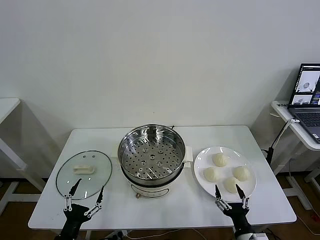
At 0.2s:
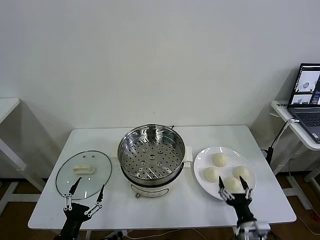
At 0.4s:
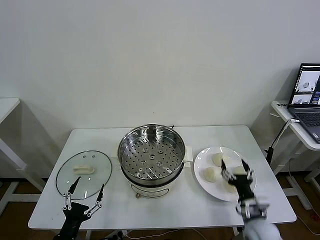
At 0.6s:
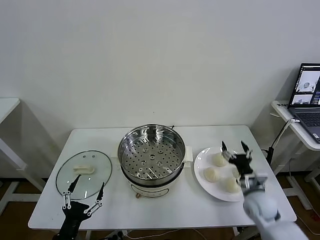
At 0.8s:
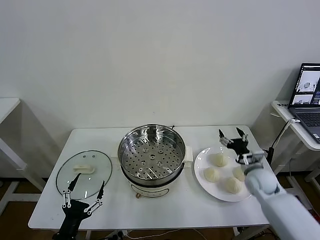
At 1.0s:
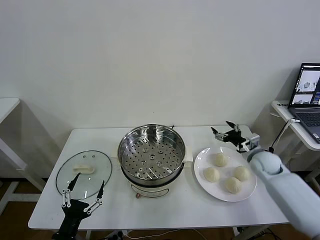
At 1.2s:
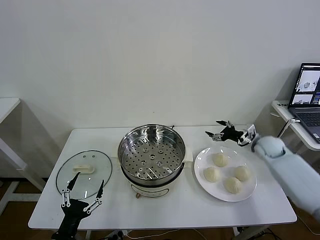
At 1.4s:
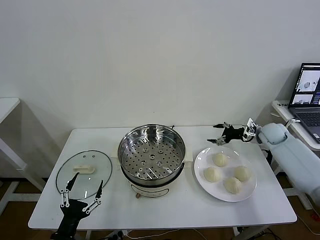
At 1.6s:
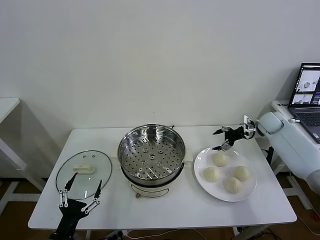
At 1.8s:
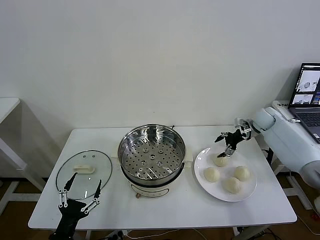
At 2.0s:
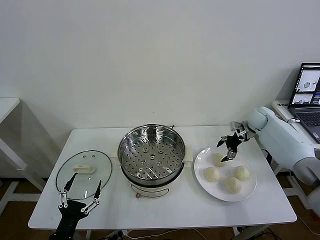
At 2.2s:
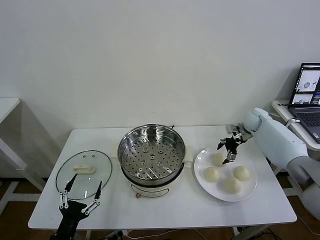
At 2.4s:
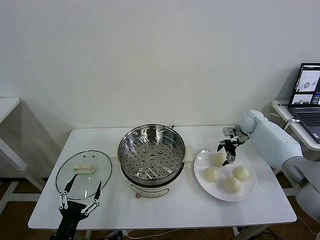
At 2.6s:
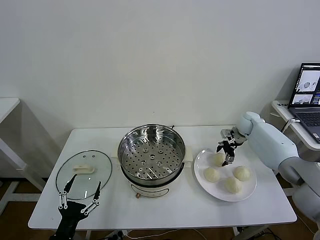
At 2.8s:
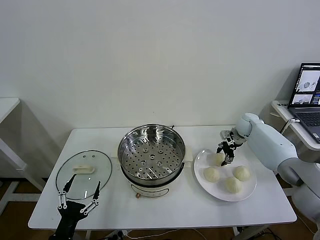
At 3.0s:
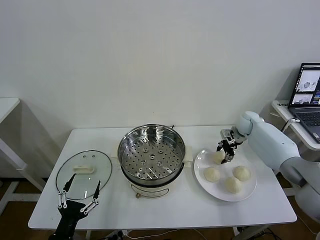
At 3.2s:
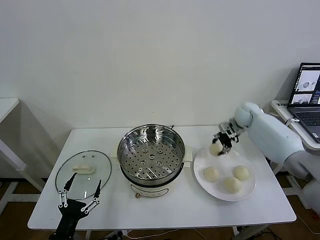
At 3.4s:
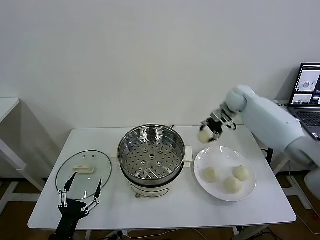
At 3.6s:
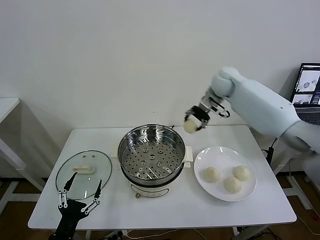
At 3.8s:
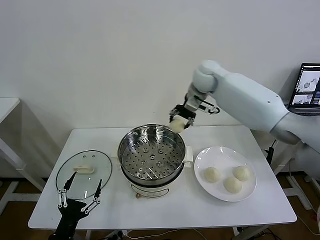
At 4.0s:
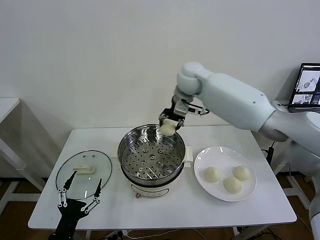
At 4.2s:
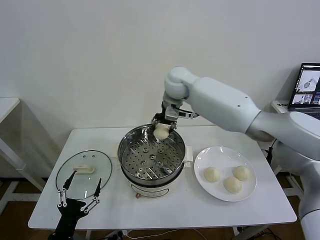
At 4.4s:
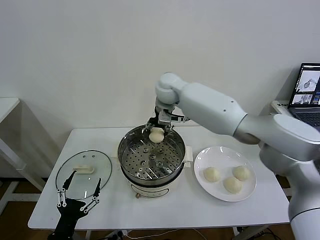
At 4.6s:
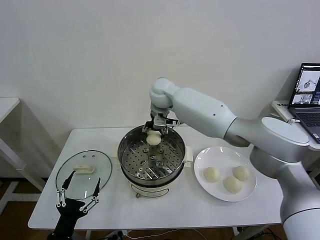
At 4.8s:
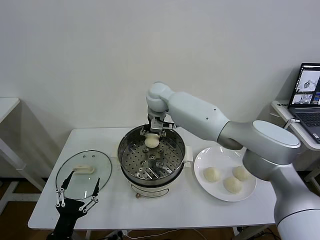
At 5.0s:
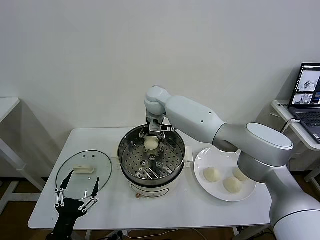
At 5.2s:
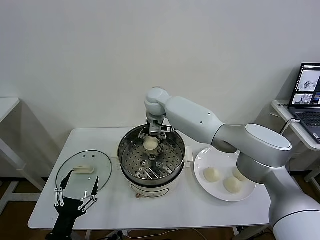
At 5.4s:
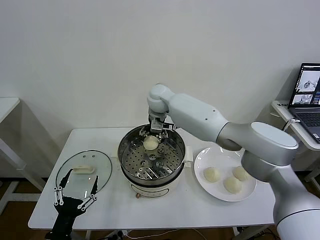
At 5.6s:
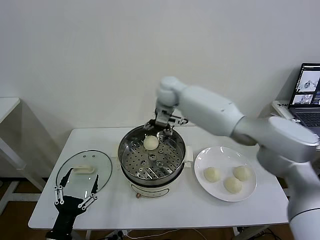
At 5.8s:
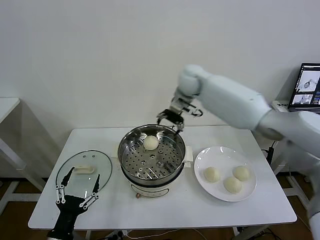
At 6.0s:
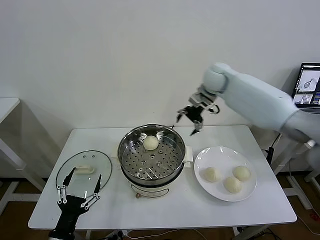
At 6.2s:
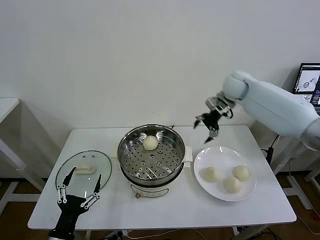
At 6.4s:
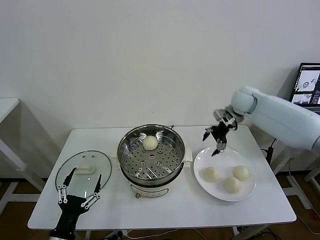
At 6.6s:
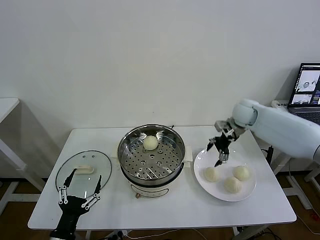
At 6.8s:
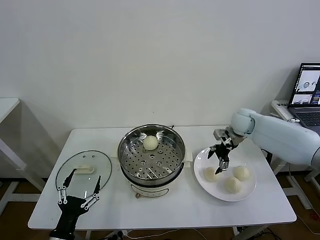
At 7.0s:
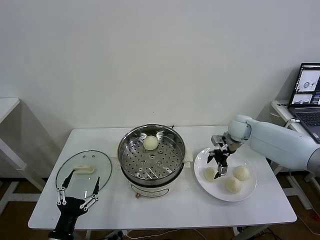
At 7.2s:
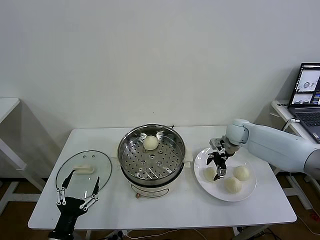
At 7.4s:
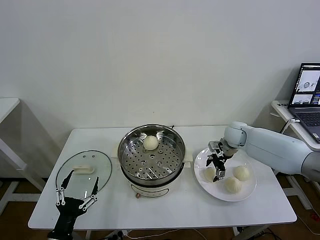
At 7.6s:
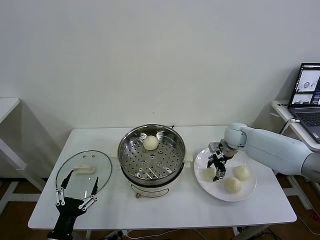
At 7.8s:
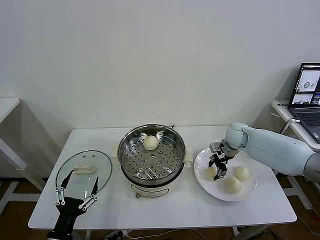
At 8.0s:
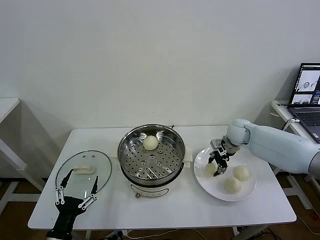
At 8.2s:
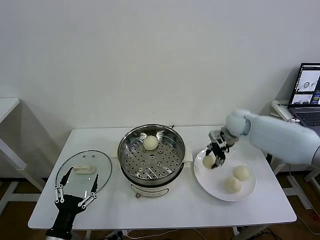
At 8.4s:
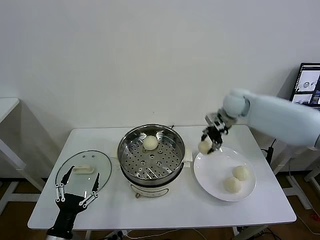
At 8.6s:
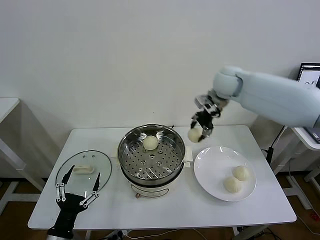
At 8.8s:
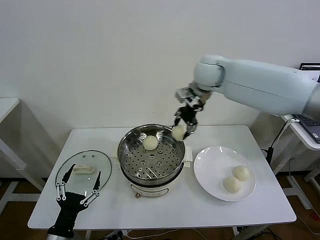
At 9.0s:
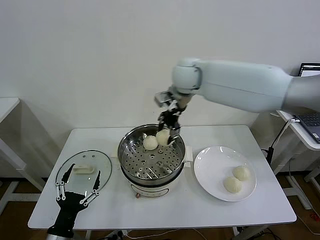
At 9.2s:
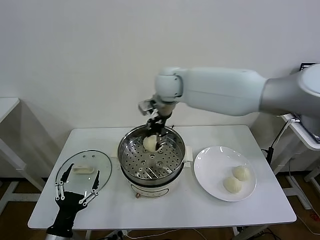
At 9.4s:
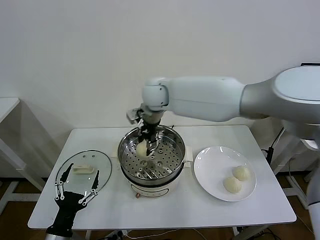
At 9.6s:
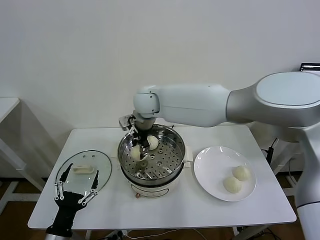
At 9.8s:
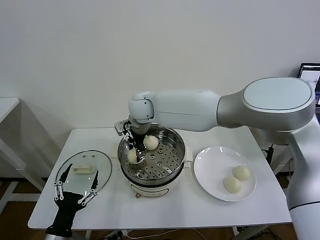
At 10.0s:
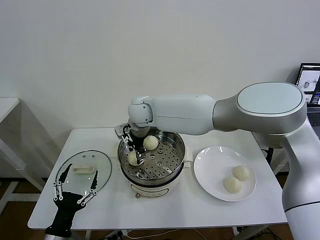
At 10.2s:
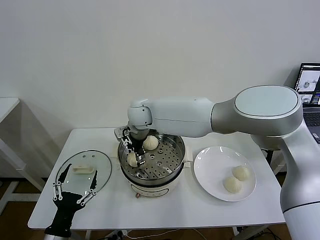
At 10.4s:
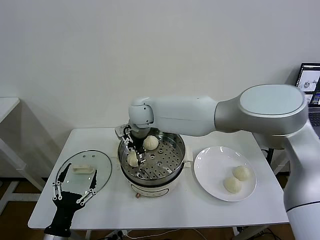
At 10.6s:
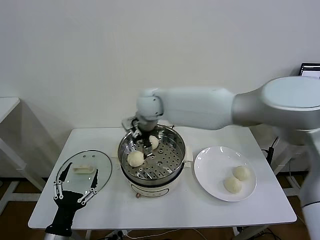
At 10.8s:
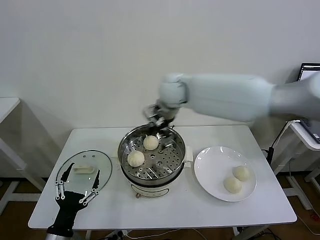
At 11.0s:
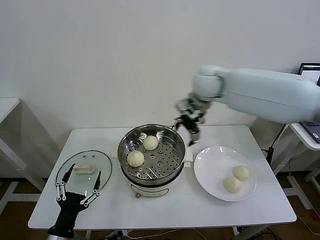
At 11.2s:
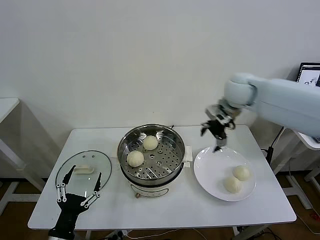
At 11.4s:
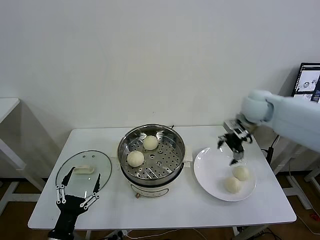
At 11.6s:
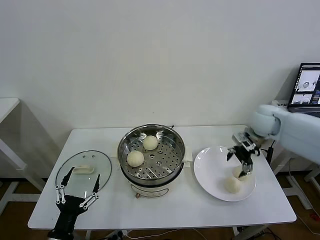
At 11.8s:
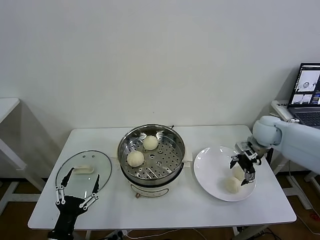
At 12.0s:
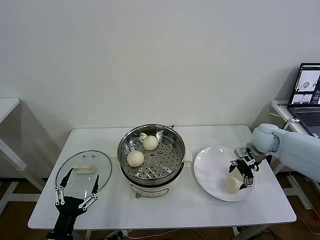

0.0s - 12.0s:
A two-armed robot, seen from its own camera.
Task of the whole recording: take steamed baozi put them in steamer then cover it.
Step, 0.0s - 2.6s: Grasp the baozi in the plate with right gripper.
Step, 3.0s - 5.4s: Place the baozi on the steamer with right gripper.
Step, 5.6s - 7.6s: Grasp the baozi in the plate with right gripper.
Step, 7.8s - 10.2s: Place the baozi on the steamer with right gripper.
1.6s - 3.0s: The right gripper moves to the left, approximately 5 cm, and closes up.
3.0s - 4.4s: The right gripper is displaced to the left and upward by about 40 cm.
4.4s - 6.0s: The right gripper is displaced to the right by approximately 20 cm, and opens its fingers.
6.0s - 7.6s: The right gripper travels downward by roughly 20 cm, and closes up.
7.6s - 9.0s: The right gripper goes approximately 35 cm upward and to the left.
9.0s - 10.4s: The right gripper moves to the left and downward, some 15 cm, and opens up.
10.4s - 12.0s: The right gripper travels to the right by approximately 40 cm.

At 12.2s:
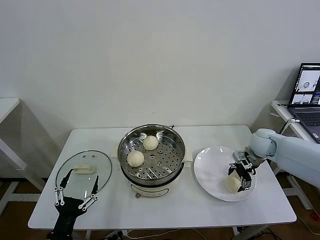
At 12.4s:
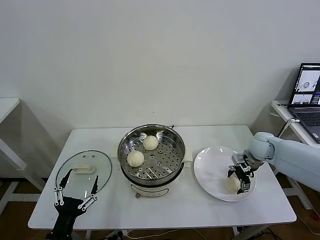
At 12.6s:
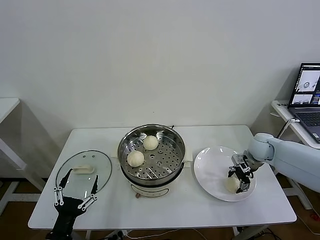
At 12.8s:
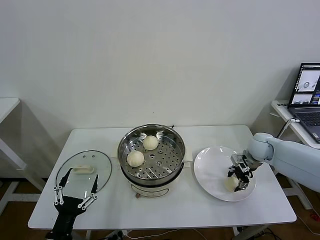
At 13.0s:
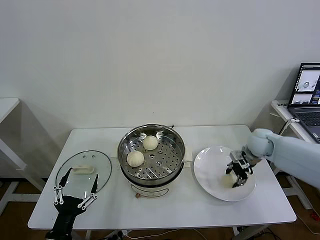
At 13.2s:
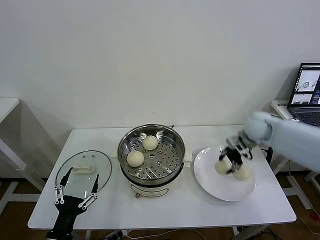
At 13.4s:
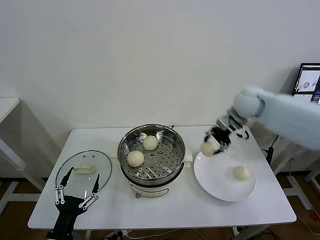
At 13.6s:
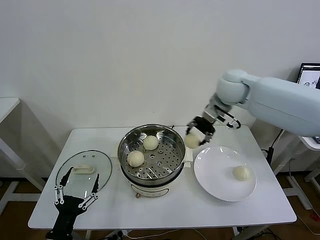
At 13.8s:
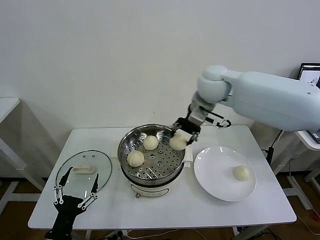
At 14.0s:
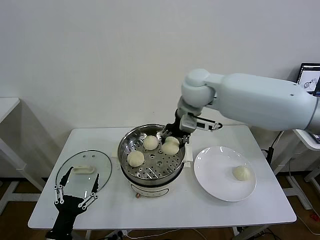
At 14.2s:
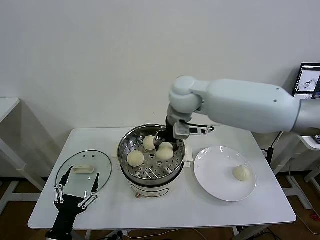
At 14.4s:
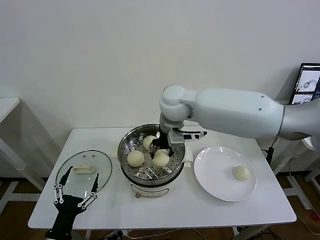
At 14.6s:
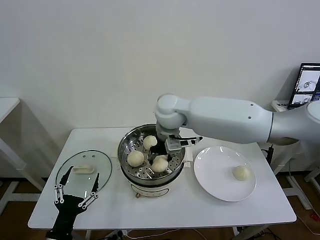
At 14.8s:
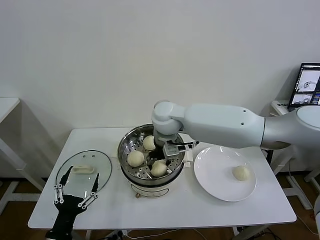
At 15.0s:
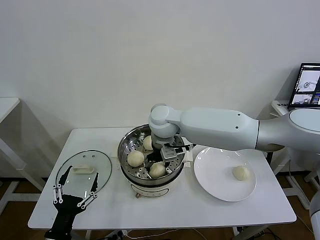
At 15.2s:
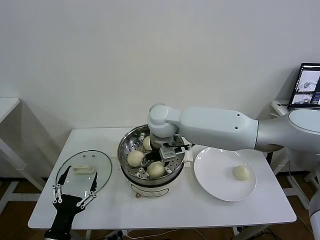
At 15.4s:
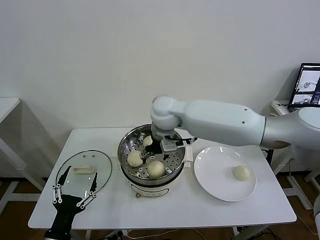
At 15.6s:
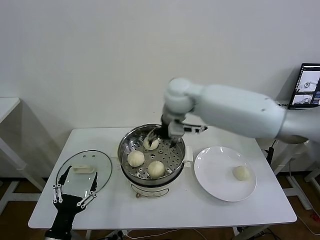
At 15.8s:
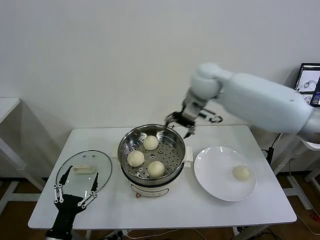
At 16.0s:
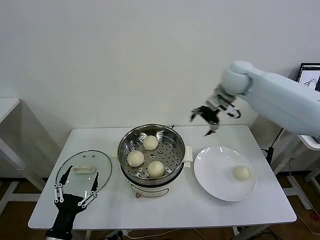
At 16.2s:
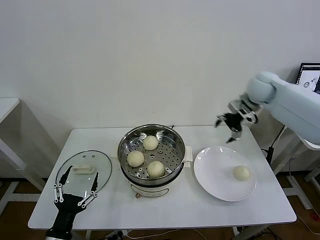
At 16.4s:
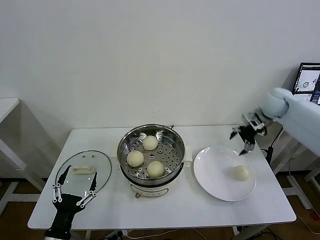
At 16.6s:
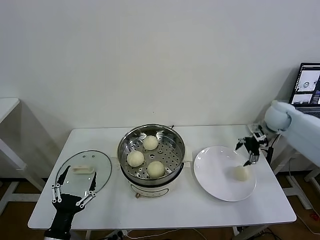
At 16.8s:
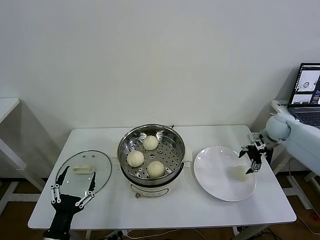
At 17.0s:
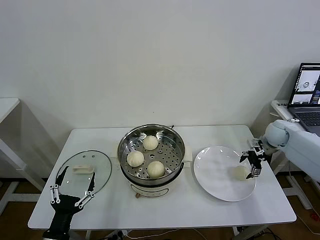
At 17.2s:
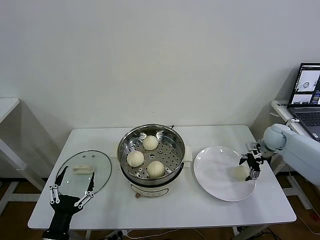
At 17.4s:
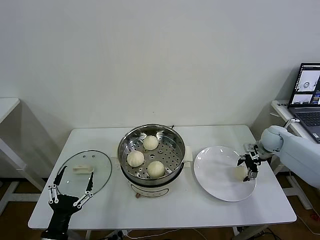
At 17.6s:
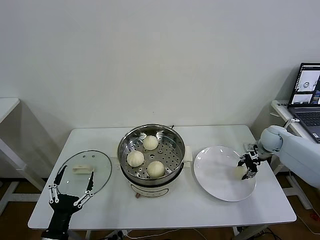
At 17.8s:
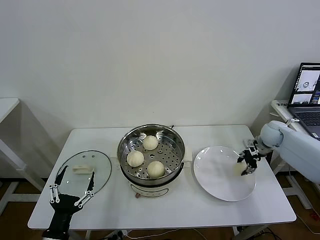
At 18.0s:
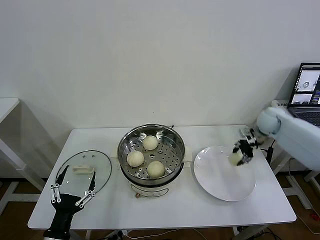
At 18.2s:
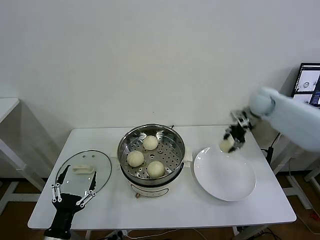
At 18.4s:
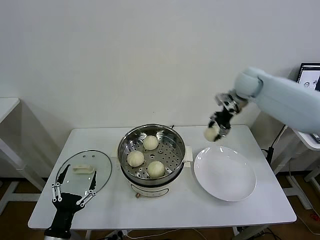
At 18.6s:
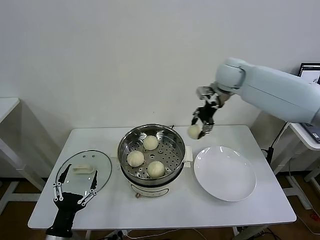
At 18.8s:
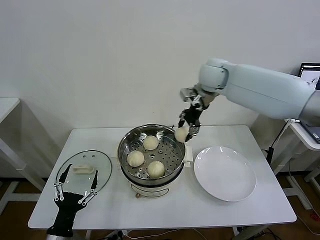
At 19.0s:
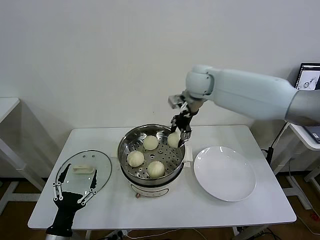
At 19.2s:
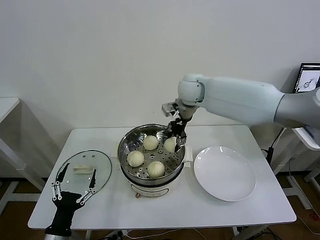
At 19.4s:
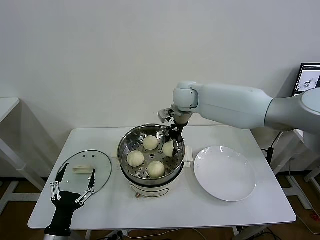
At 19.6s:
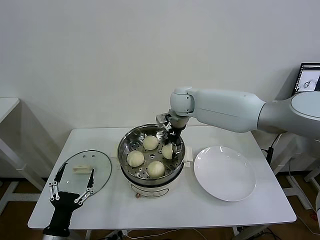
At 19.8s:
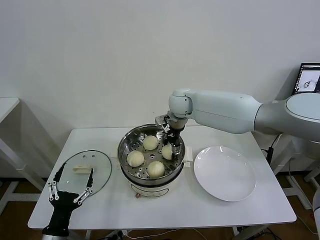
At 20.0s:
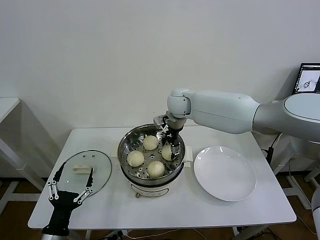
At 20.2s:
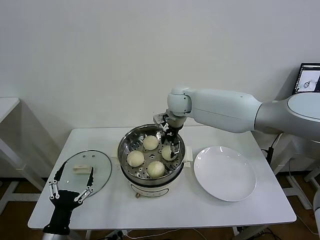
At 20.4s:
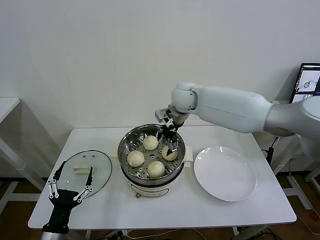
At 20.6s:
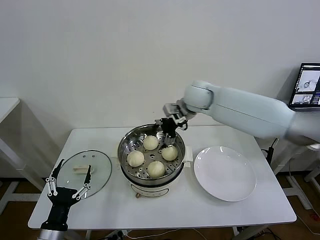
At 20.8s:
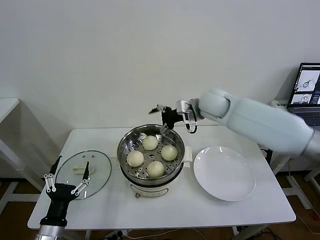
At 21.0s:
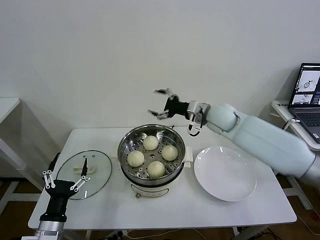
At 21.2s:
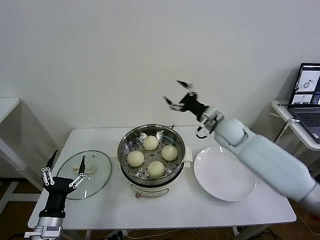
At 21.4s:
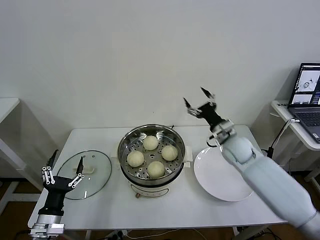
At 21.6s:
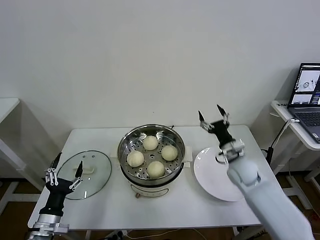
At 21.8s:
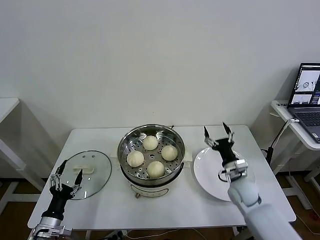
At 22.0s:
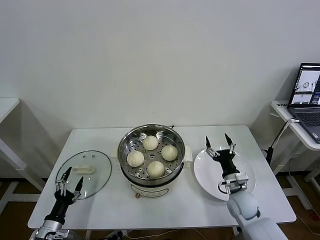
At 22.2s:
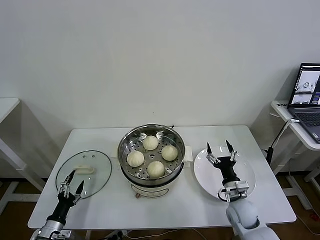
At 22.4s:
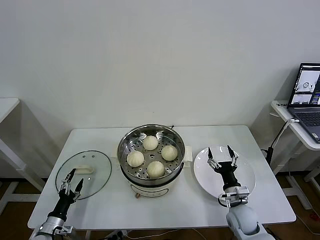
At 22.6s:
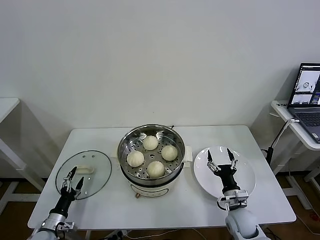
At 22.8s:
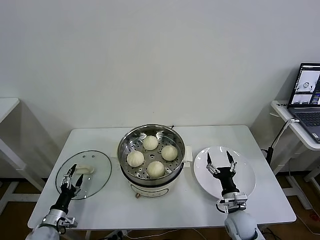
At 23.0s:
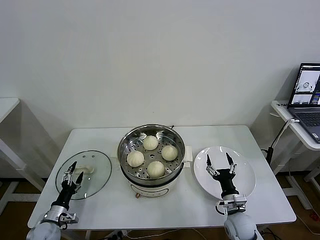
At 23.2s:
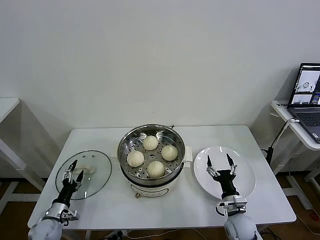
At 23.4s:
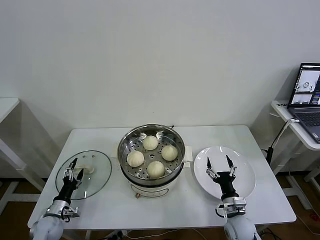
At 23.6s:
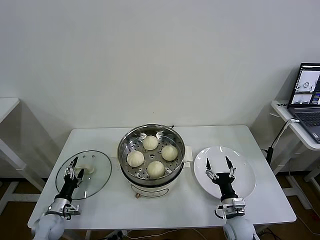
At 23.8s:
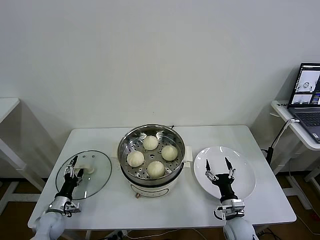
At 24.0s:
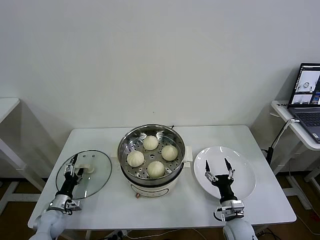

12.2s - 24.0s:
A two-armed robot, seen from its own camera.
Task of the whole recording: take steamed baozi put them in steamer then cover it.
Step, 12.8s - 15.2s: Place the baozi on the steamer with right gripper.
Step, 15.4s - 17.4s: Grasp the baozi in the plate with right gripper.
Step, 17.6s - 20.0s: Place the baozi on the steamer with right gripper.
12.2s - 13.6s: The right gripper shifts some 30 cm upward and to the left, and closes its fingers.
13.6s - 15.2s: The right gripper travels to the left and downward by some 20 cm, and opens up.
15.2s - 16.6s: The right gripper goes roughly 40 cm to the right.
16.6s - 18.2s: The right gripper shifts some 10 cm to the left and upward, and closes its fingers.
18.2s - 19.6s: The right gripper moves to the left, some 30 cm.
19.6s - 21.0s: The right gripper heads to the right and backward, covering roughly 15 cm, and opens up.
21.0s - 22.6s: The left gripper moves downward, to the left and forward, some 20 cm; the right gripper moves downward and backward, roughly 35 cm.
22.6s - 24.0s: The left gripper goes approximately 10 cm forward.
